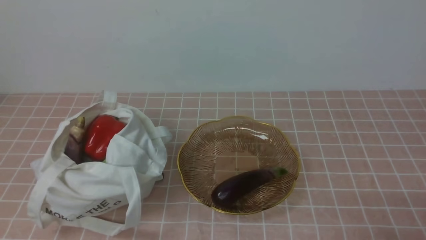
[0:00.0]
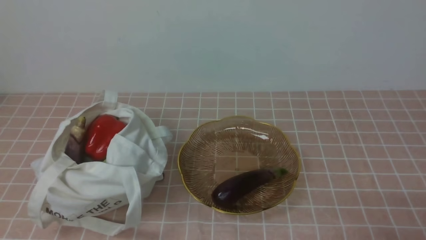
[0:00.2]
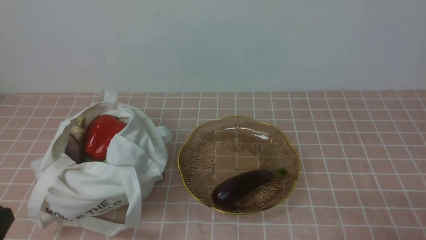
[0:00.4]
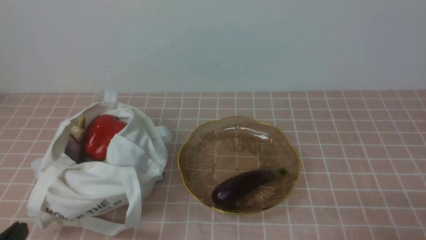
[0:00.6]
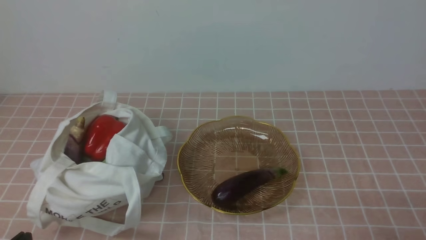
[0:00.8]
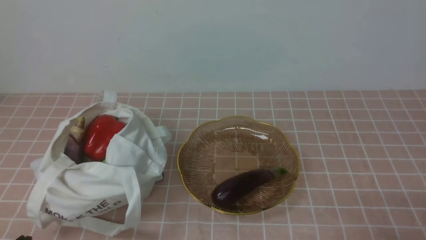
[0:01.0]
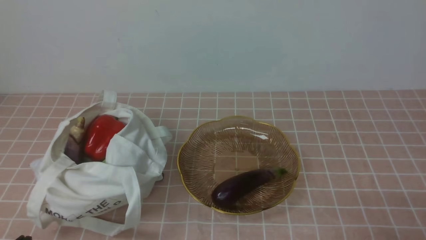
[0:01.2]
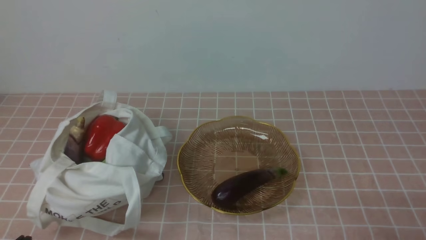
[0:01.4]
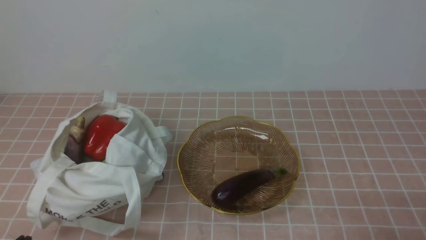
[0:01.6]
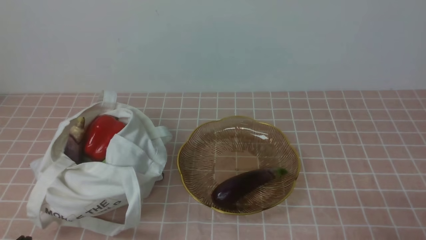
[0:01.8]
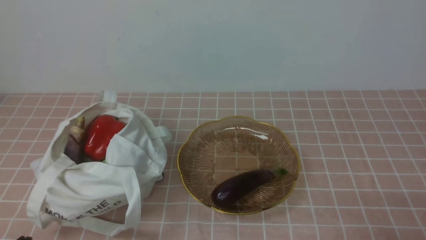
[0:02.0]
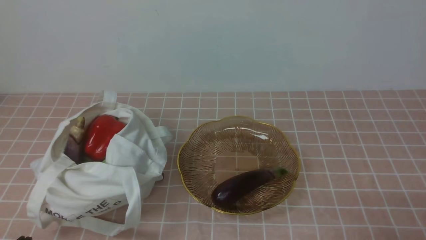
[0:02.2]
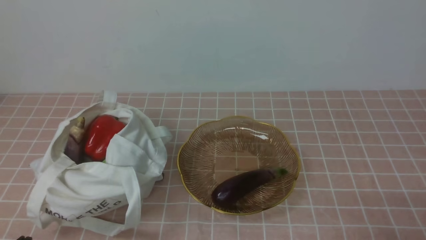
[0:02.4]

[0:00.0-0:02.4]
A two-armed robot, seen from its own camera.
Task of the whole recording: take vegetables from bag on pink coffee tablecloth place on plate.
0:01.2 to 0:02.4: The two grippers keep their place.

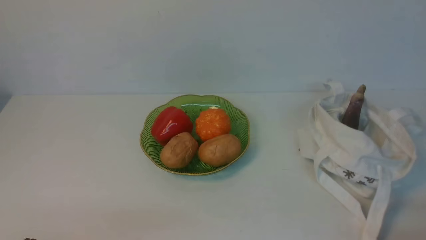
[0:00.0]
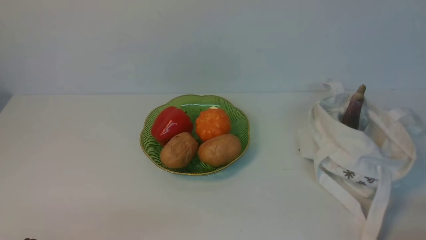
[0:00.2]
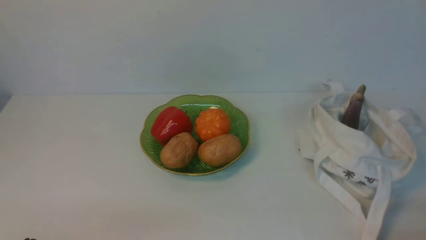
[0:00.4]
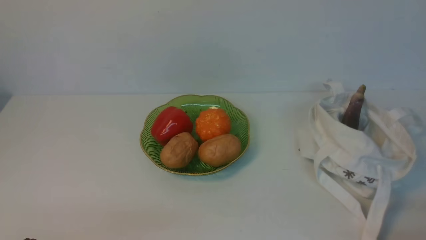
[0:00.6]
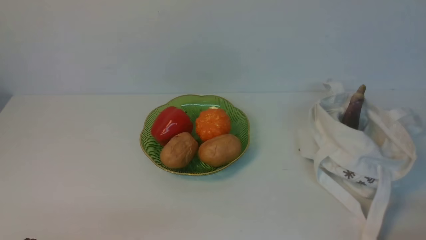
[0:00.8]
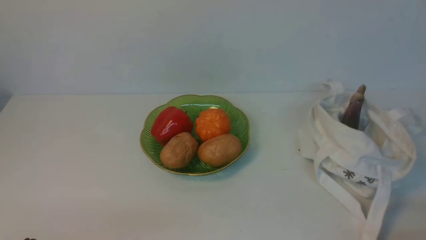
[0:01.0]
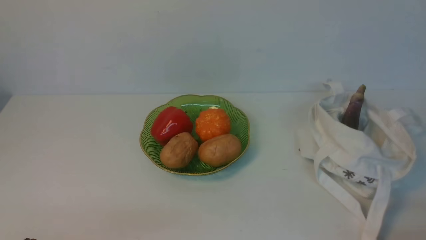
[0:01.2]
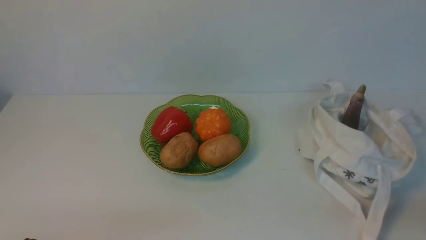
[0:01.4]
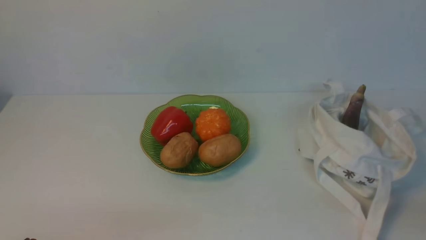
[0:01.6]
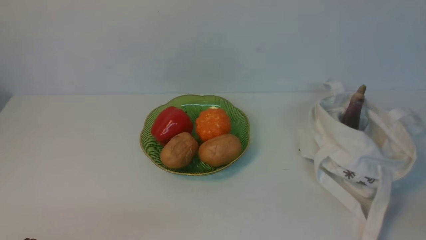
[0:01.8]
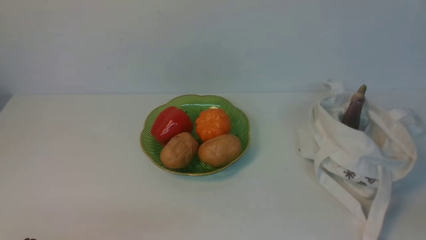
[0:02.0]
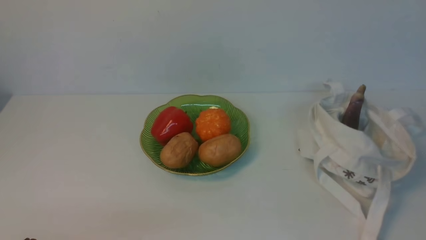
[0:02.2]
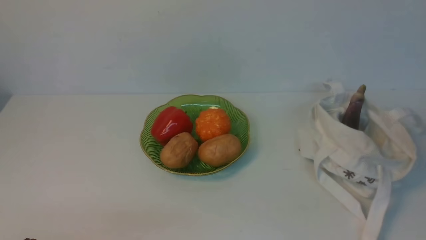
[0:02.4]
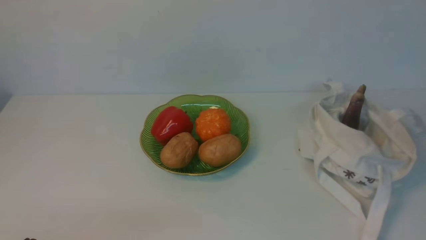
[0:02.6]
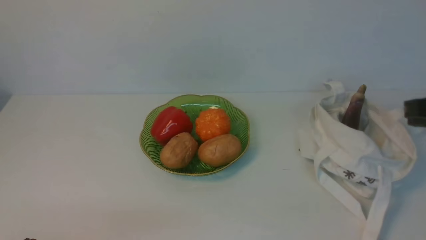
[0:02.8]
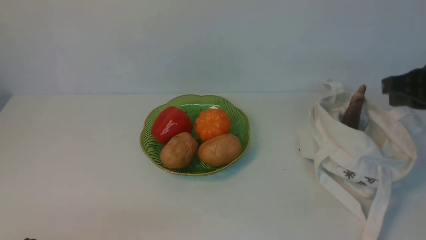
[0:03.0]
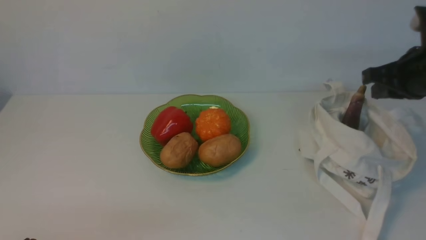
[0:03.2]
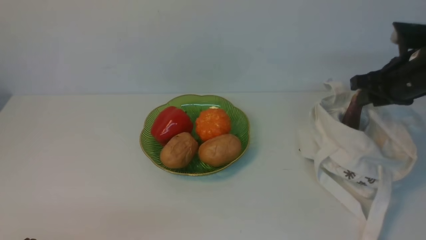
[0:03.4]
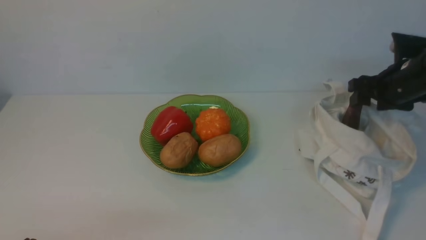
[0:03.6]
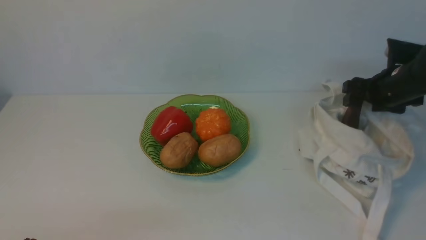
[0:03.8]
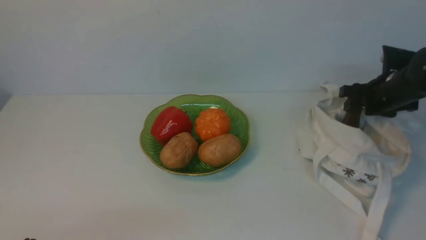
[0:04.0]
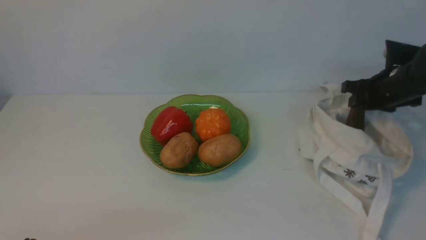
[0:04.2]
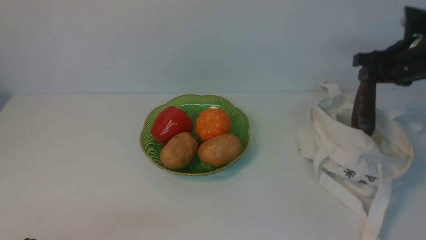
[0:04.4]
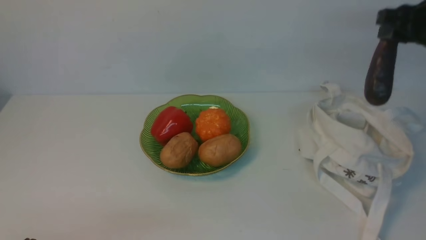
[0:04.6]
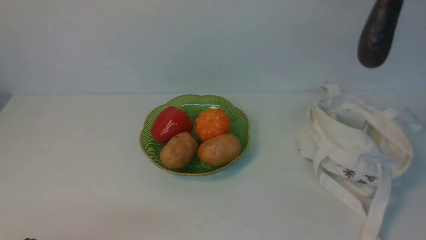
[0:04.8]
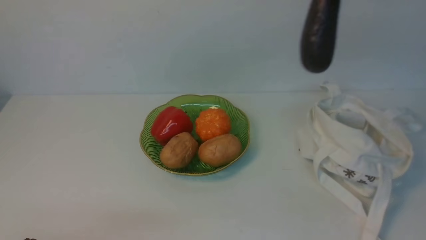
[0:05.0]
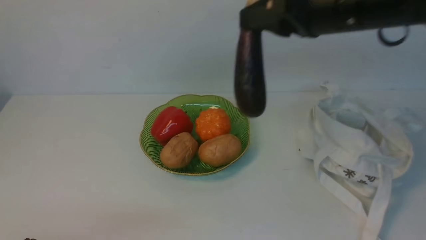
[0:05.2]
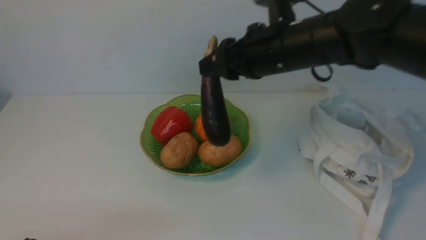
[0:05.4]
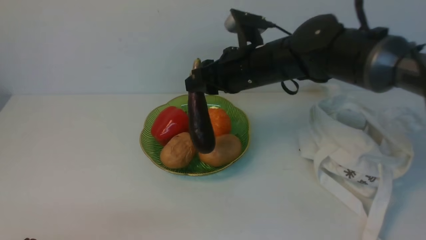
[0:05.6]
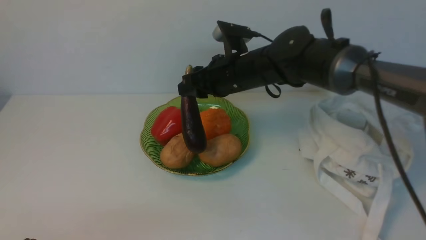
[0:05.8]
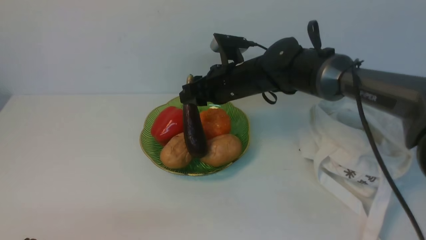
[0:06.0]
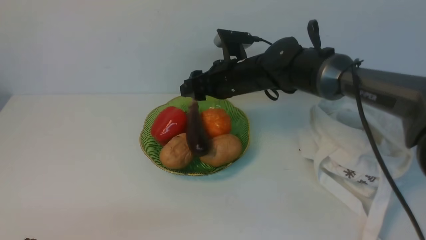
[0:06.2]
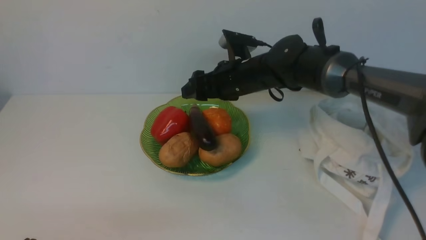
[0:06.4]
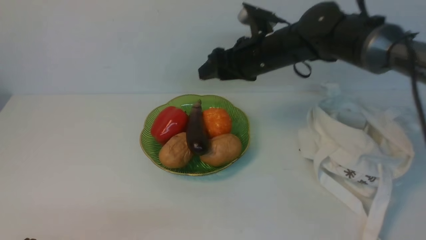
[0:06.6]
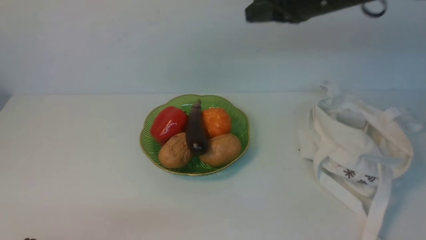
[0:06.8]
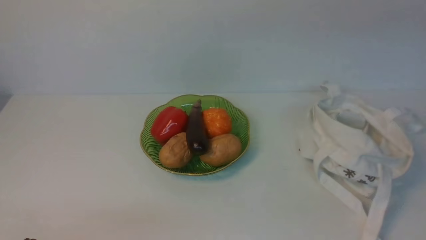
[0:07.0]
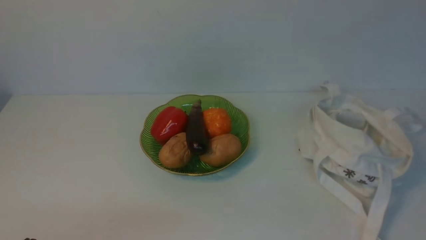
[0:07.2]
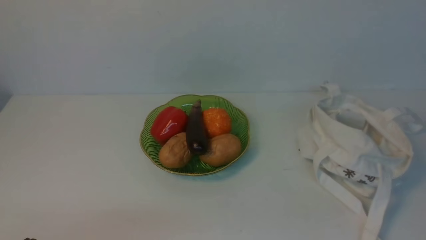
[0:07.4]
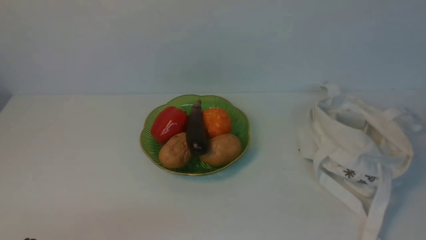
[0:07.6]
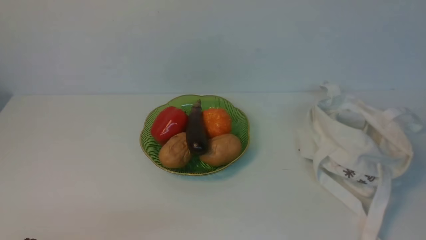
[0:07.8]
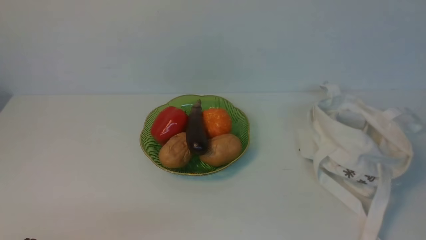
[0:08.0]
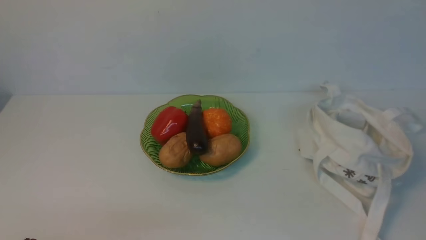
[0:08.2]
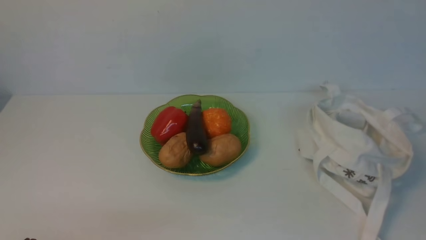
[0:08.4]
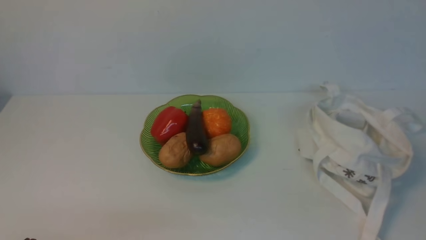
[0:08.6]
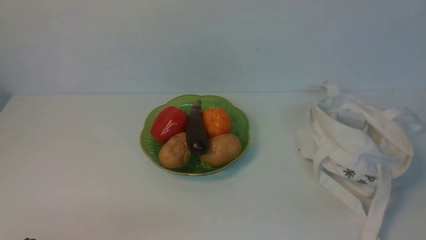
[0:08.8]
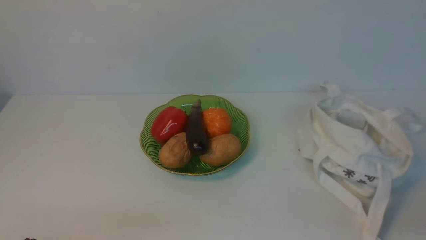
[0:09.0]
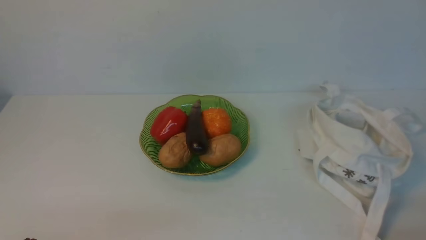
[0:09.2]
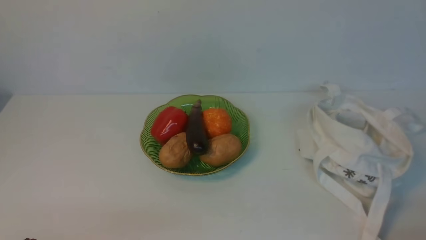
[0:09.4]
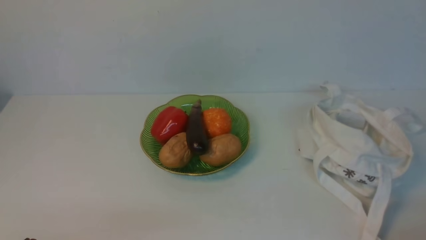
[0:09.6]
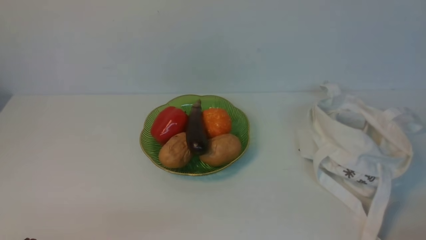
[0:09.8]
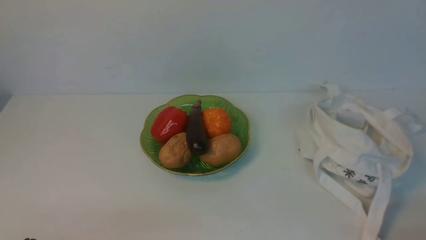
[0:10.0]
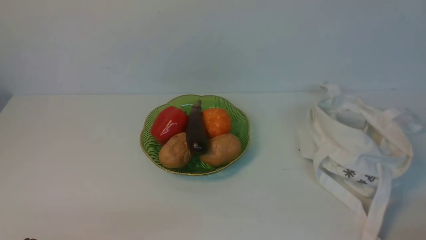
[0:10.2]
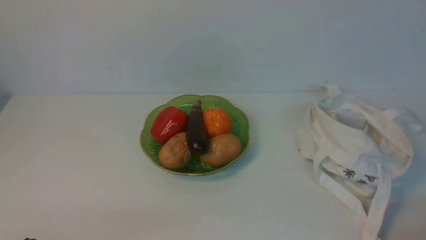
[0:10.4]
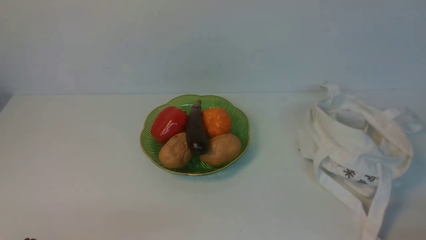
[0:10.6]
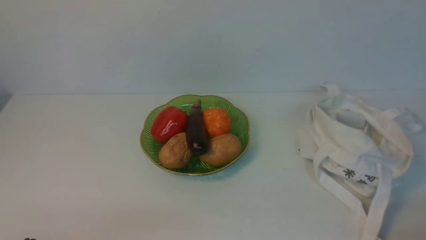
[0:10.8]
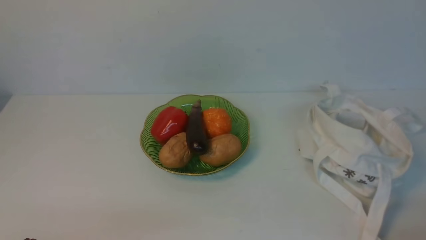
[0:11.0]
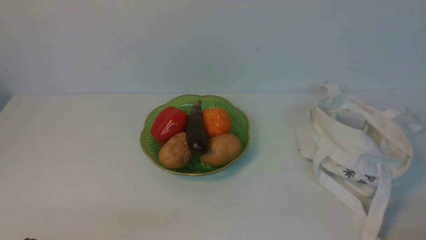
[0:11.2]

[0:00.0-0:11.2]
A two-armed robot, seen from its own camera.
Task of the whole recording: take vegetables from cloth bag on white table place on plate.
Step, 0:00.0 to 0:04.0: Grasp the eggplant with right gripper.
Step, 0:04.2 to 0:06.2: Place the eggplant on the plate with right gripper.
0:01.6 to 0:03.2: The right gripper shifts approximately 30 cm forward.
0:03.2 to 0:04.8: The right gripper travels upward by about 10 cm, and opens and closes again.
0:04.8 to 0:06.4: The right gripper heads to the left, downward and forward, covering approximately 30 cm, and opens.
0:06.4 to 0:08.0: The right gripper is displaced backward and to the right by approximately 50 cm, and closes.
0:09.6 to 0:11.2: Both grippers stay put.

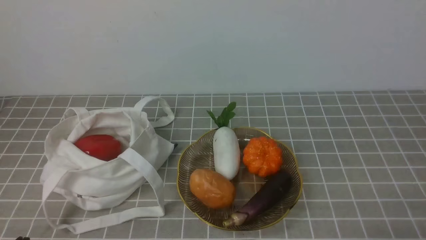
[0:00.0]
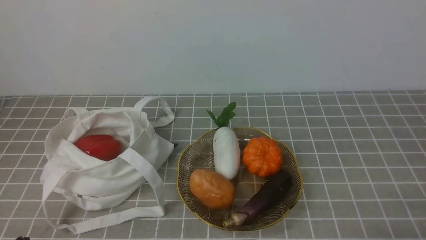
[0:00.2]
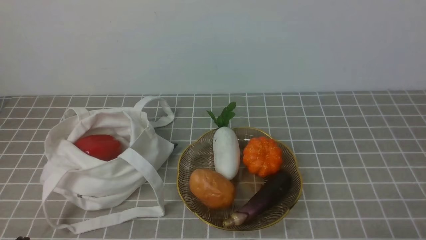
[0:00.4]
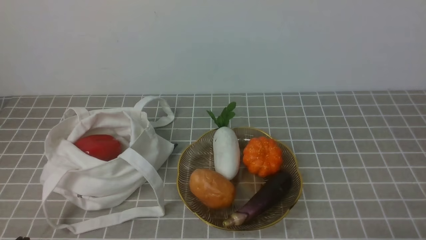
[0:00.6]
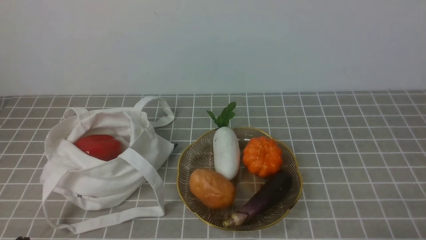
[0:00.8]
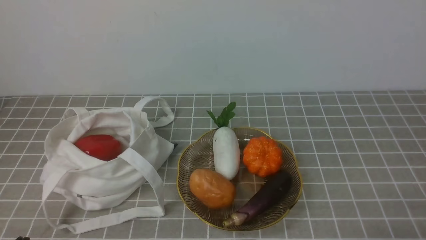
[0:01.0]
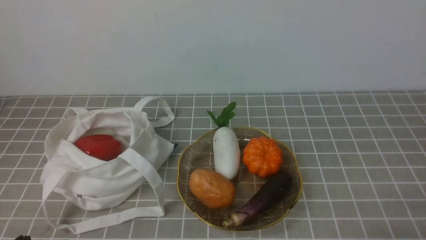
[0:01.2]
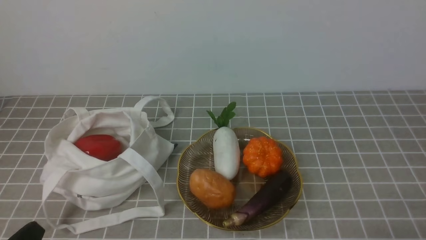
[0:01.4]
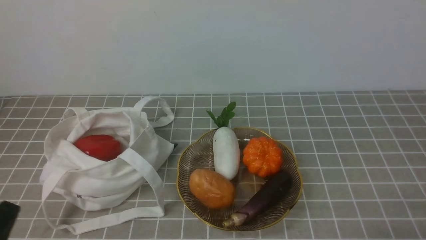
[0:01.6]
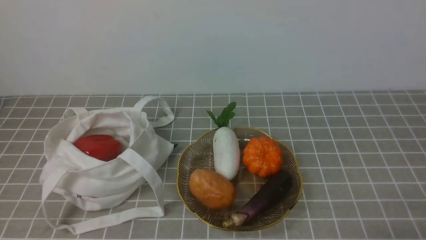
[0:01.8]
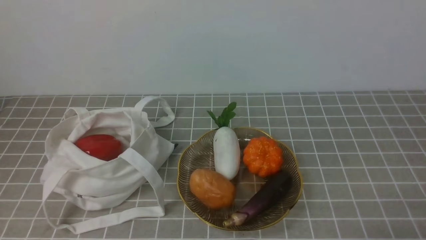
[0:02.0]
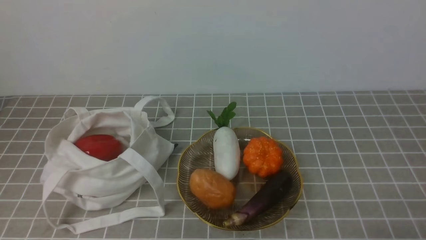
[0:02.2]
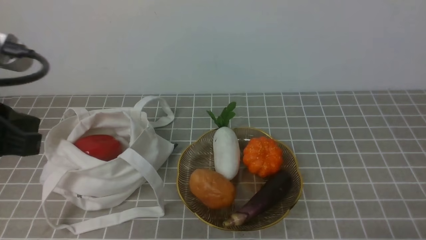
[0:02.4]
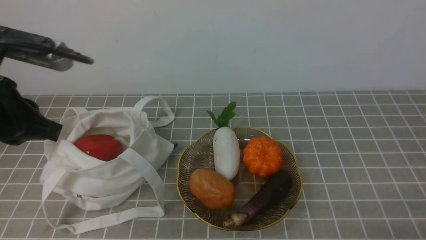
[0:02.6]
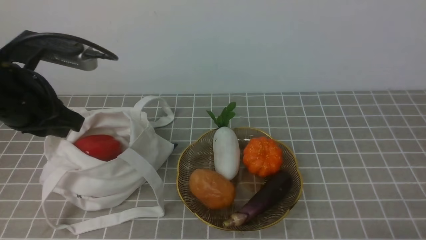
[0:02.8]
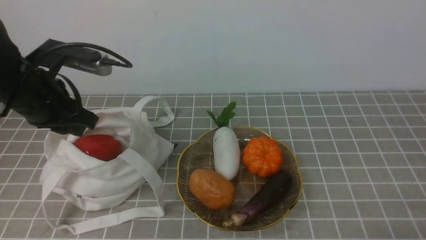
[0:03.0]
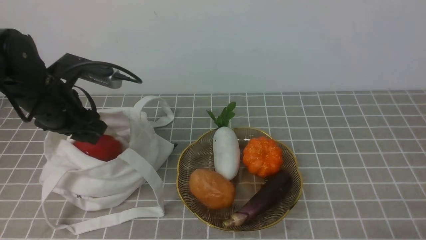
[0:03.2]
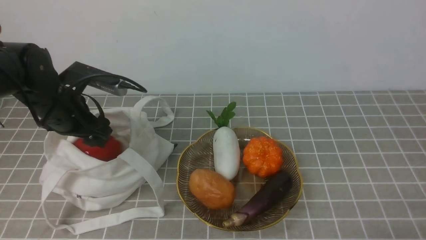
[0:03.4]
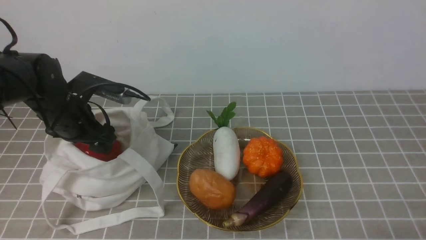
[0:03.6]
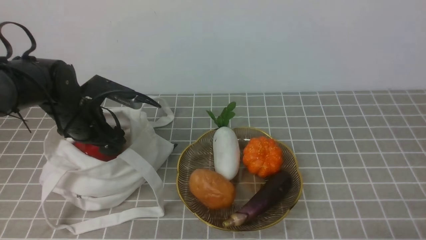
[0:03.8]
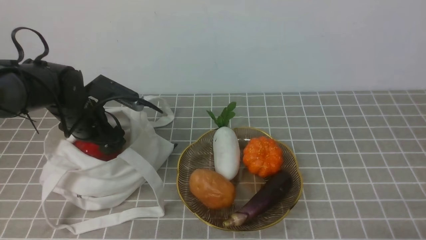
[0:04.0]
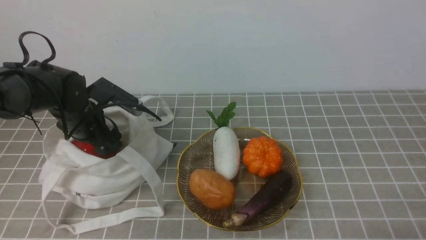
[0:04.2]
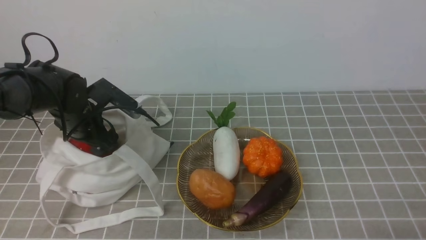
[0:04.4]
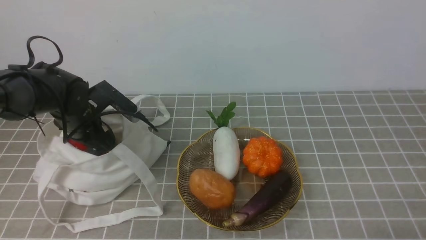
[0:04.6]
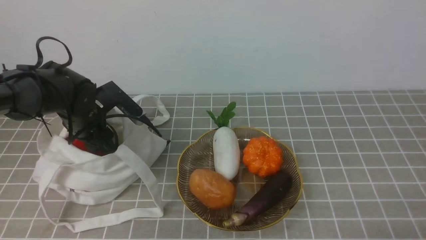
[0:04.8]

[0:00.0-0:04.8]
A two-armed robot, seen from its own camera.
Task of the whole recording: take vegetables from bag on grey coffee tablecloth place on plate.
0:01.6 to 0:03.2: The left gripper goes some 25 cm forward, and opens up.
0:03.2 to 0:04.8: The left gripper moves downward and forward, approximately 10 cm.
